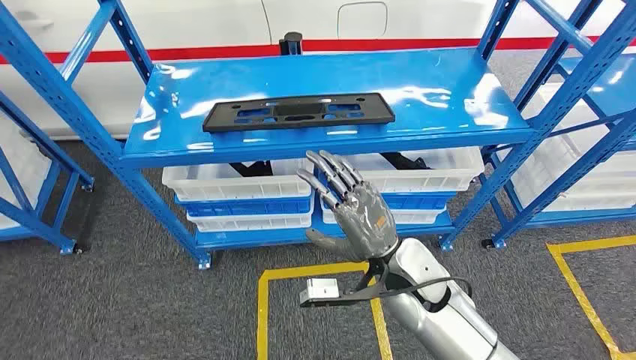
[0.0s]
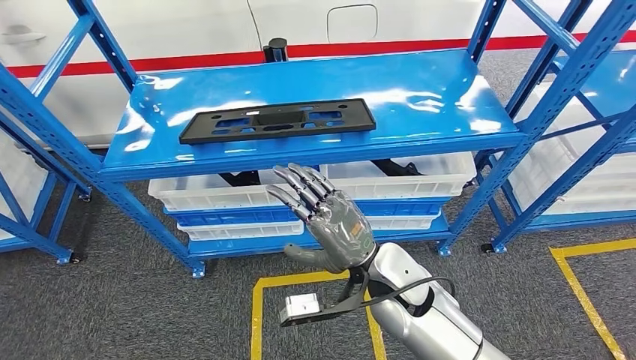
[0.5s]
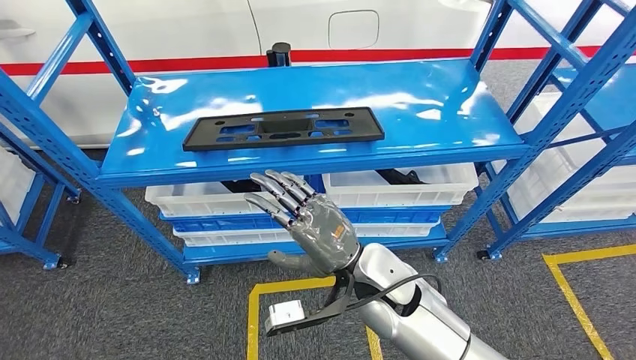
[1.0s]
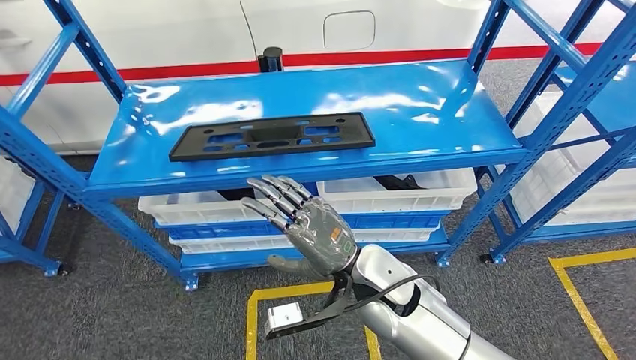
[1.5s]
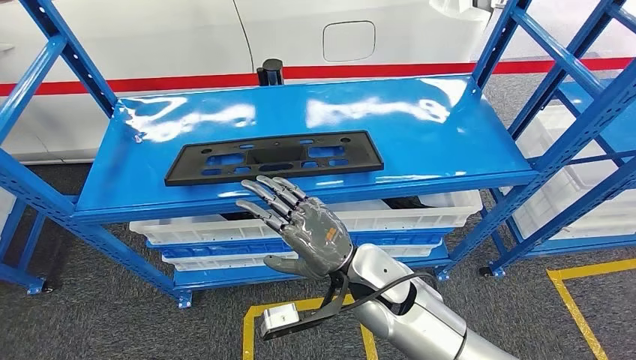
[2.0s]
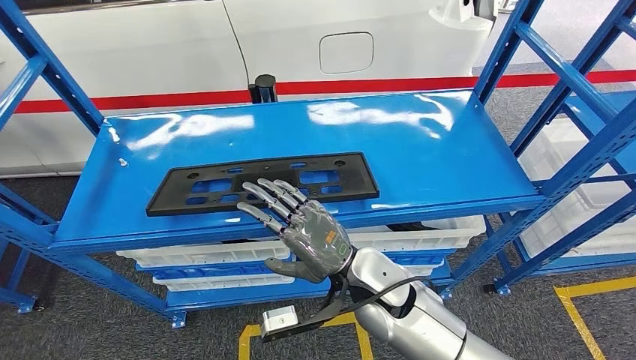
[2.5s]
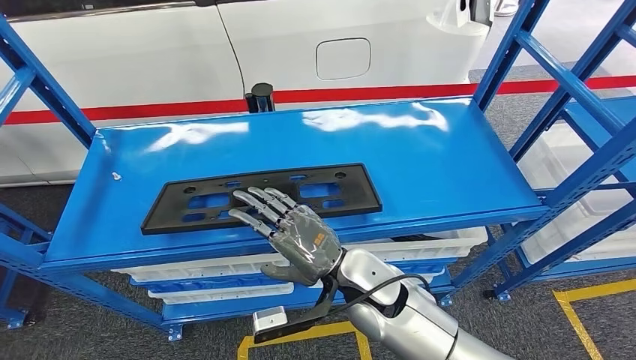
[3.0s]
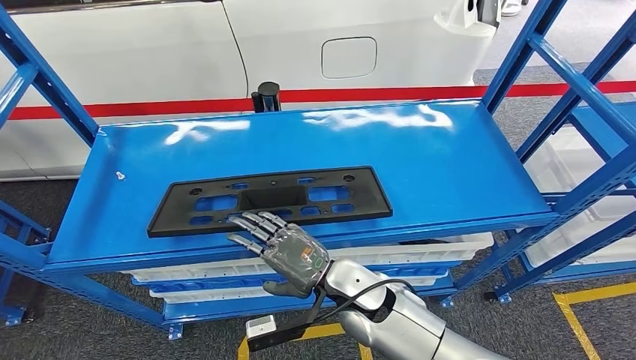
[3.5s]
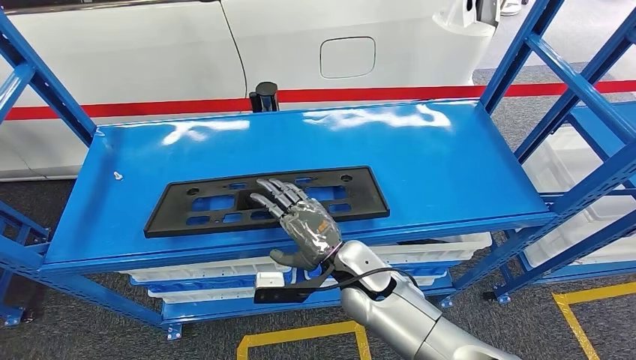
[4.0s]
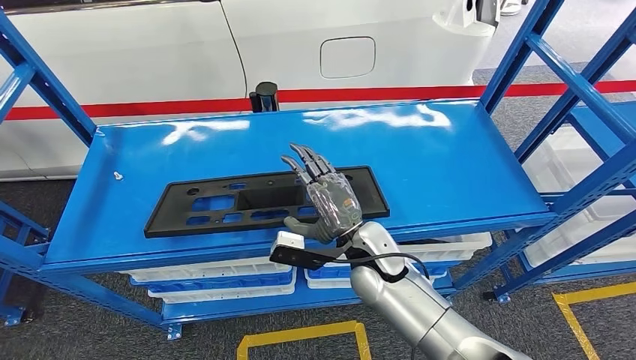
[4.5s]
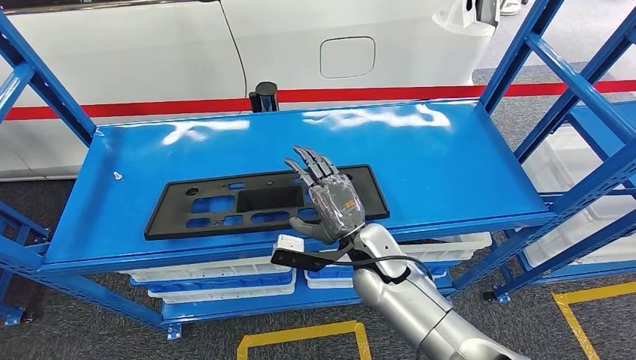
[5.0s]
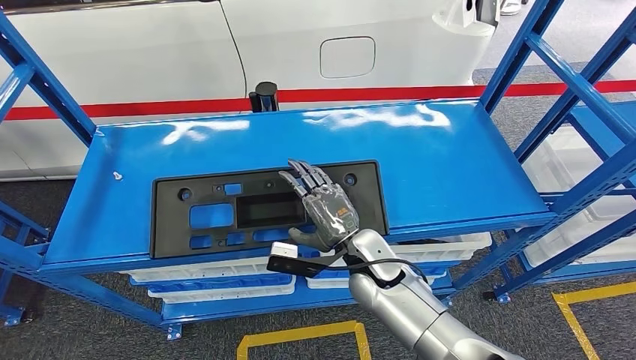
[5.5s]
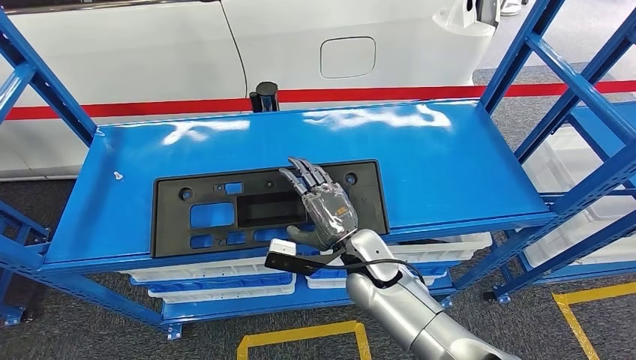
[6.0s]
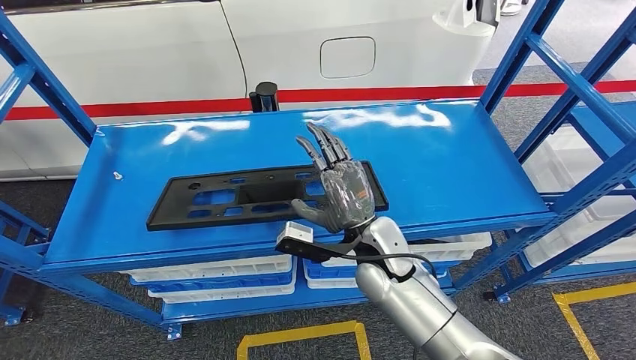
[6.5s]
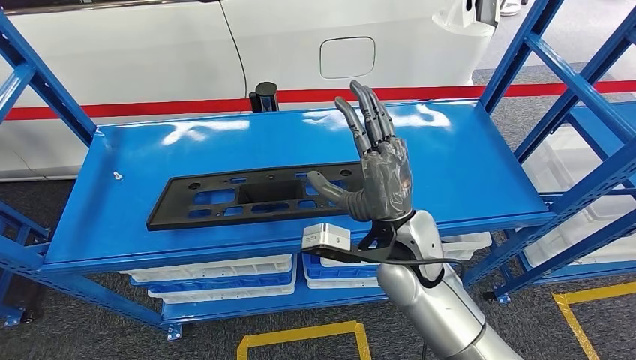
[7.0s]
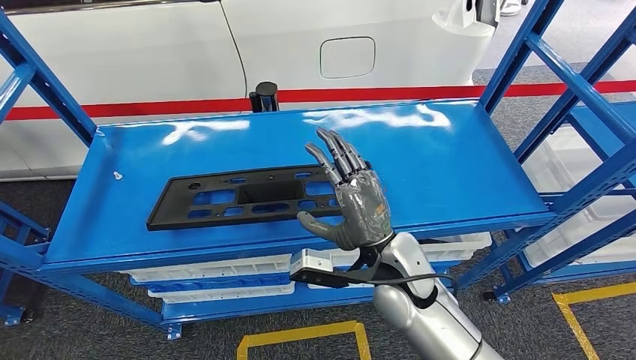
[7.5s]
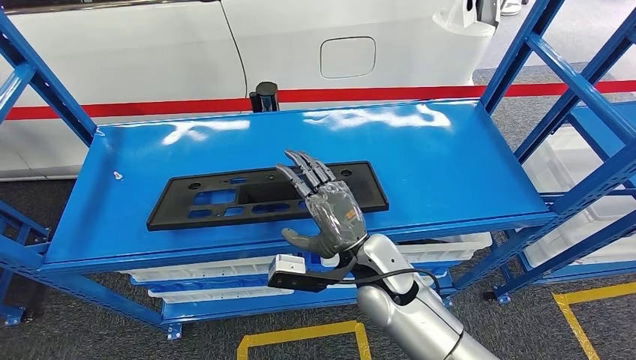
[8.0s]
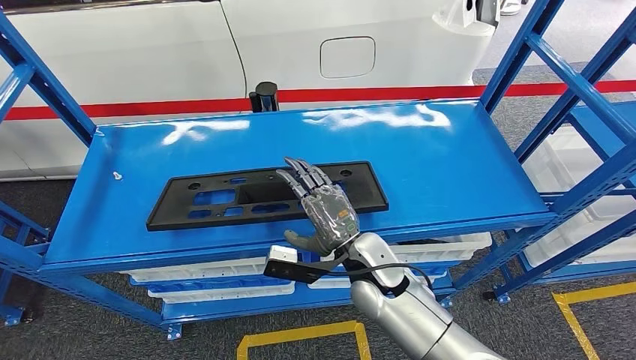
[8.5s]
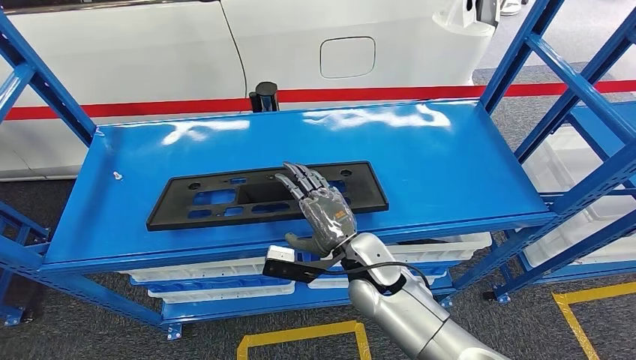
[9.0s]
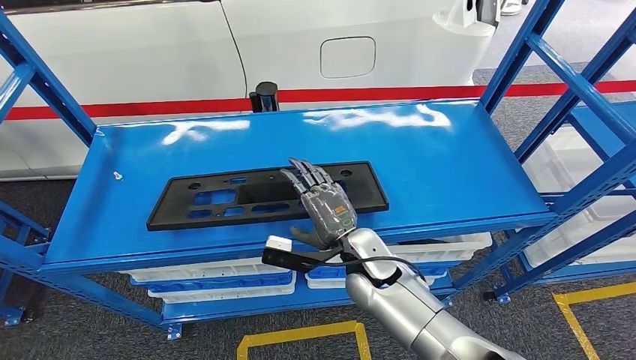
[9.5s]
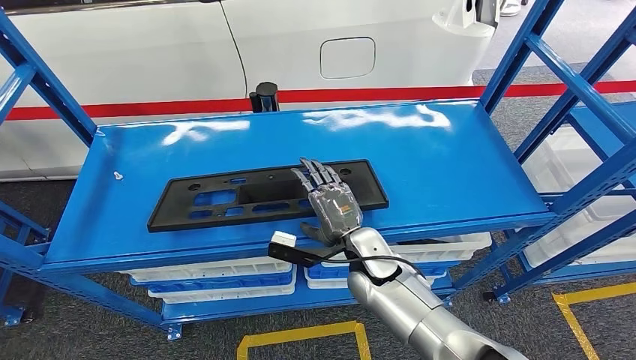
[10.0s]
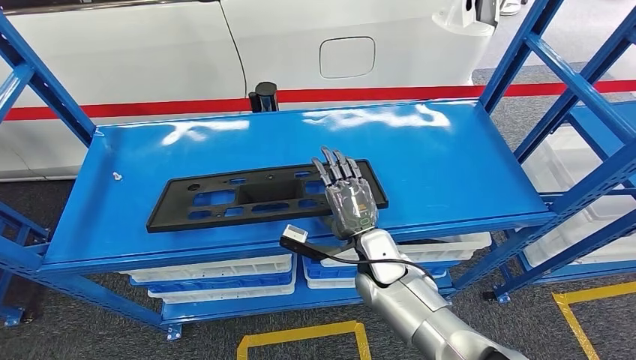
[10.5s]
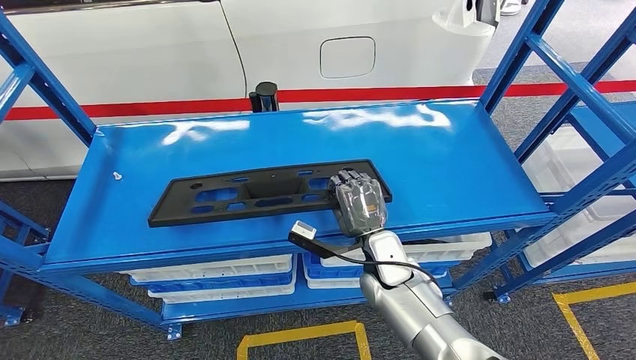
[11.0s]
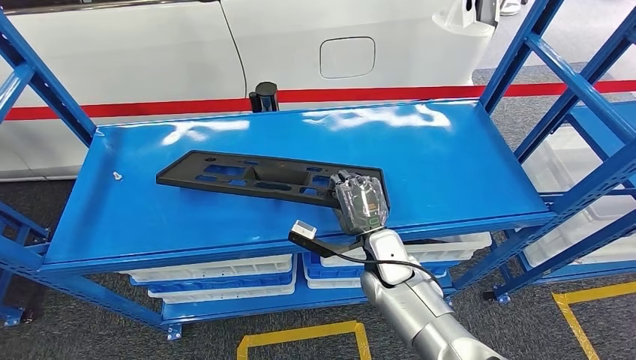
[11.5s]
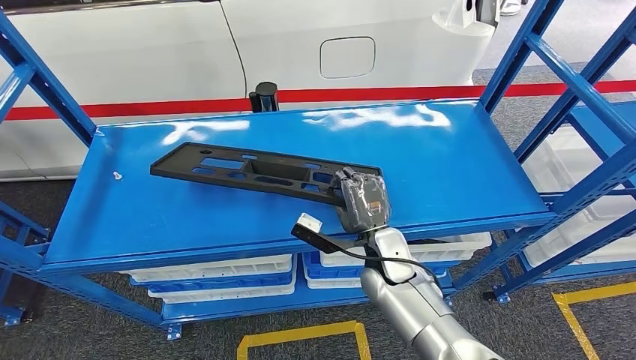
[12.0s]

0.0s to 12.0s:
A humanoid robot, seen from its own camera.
4.0s to 6.0s: The hands move only a little.
8.0s to 10.0s: The right hand goes some 5 cm downward.
10.0s to 12.0s: The hands make only small movements.

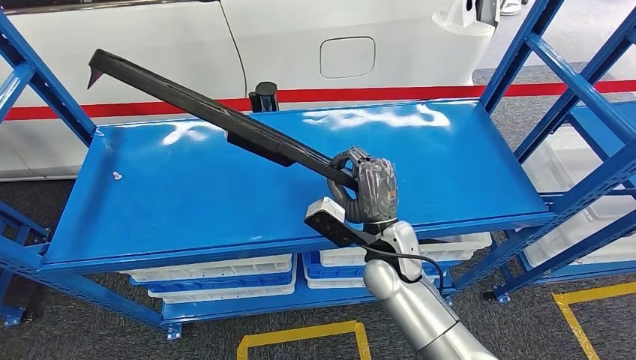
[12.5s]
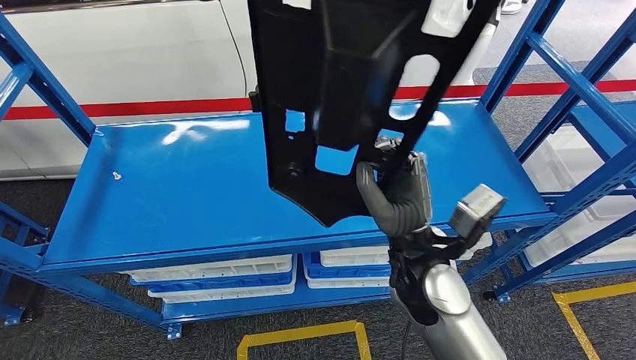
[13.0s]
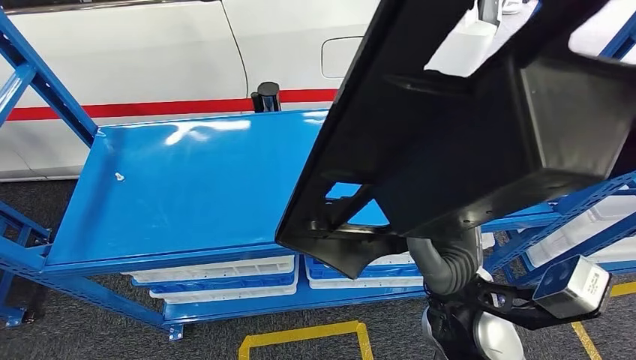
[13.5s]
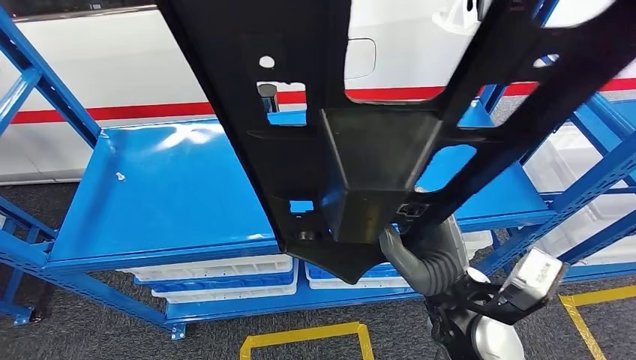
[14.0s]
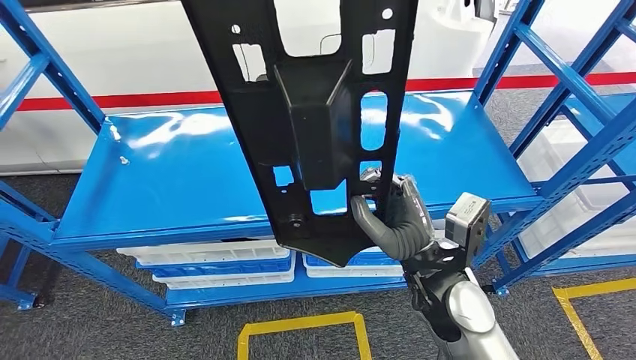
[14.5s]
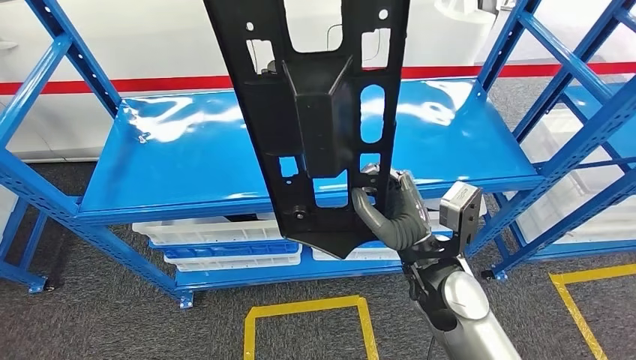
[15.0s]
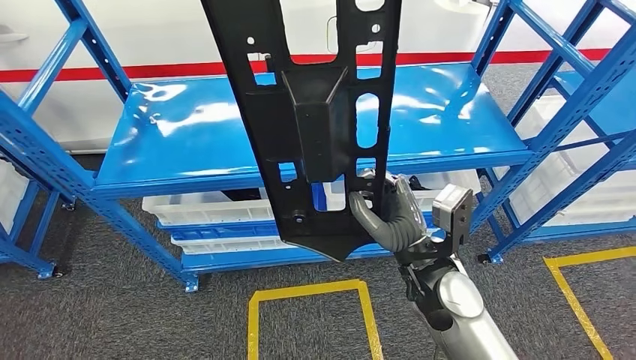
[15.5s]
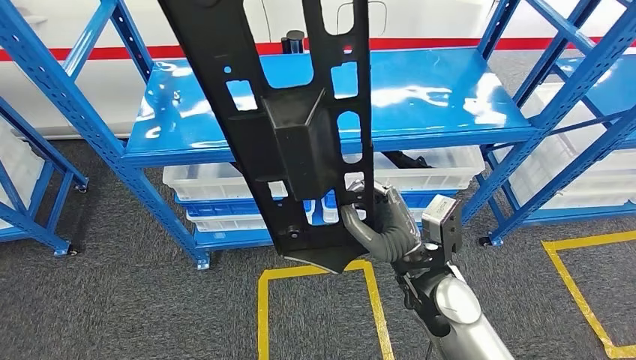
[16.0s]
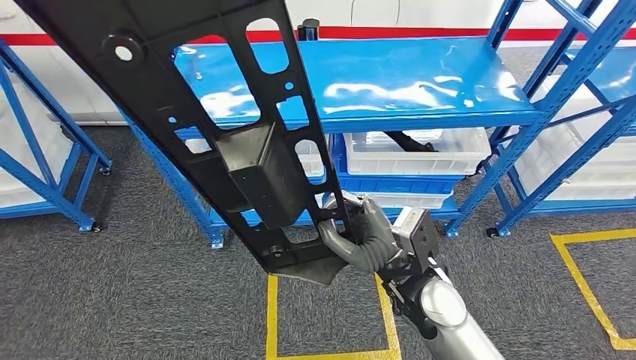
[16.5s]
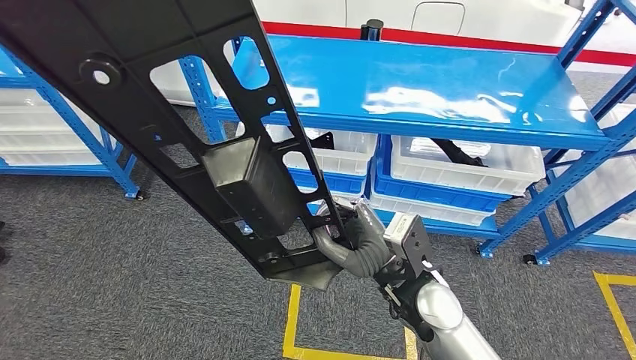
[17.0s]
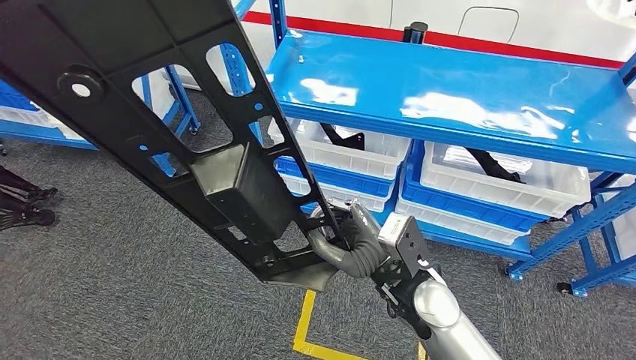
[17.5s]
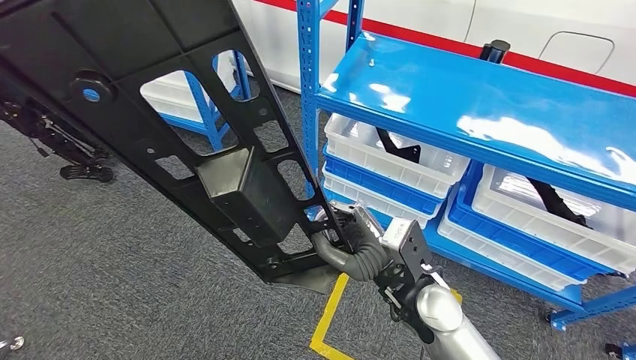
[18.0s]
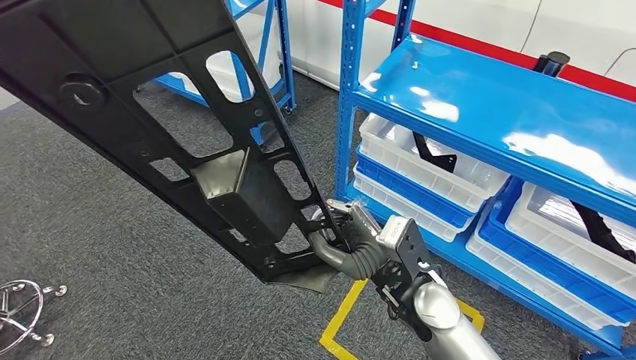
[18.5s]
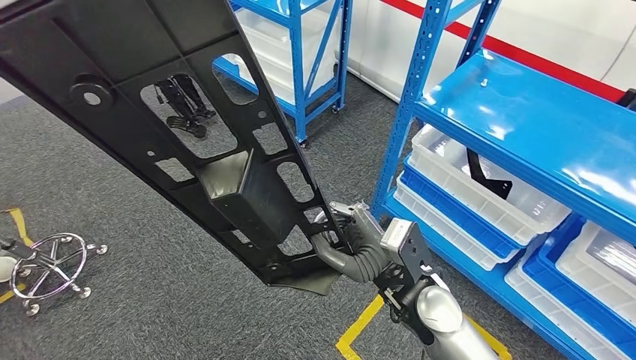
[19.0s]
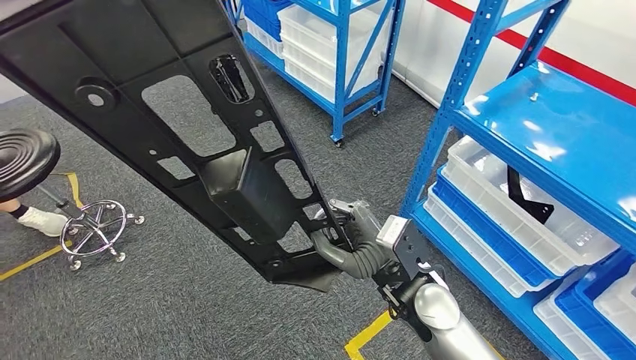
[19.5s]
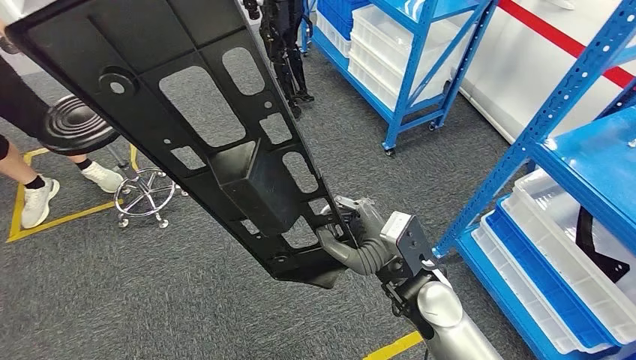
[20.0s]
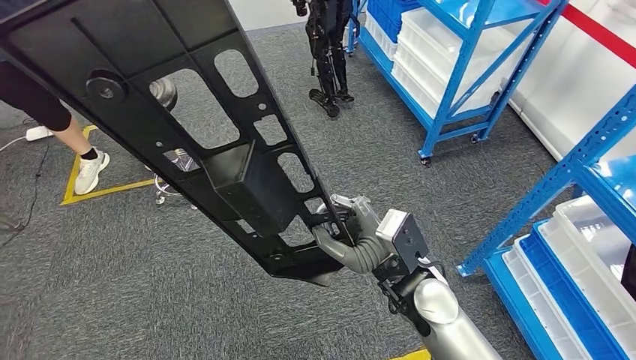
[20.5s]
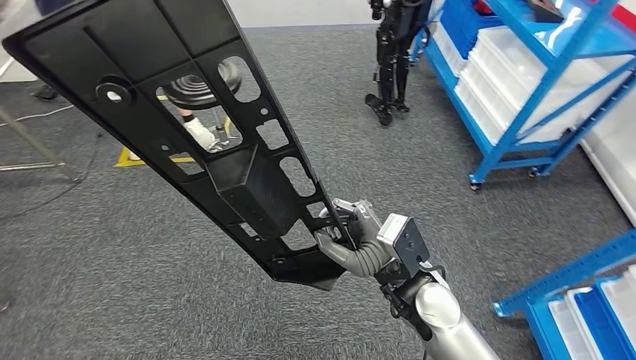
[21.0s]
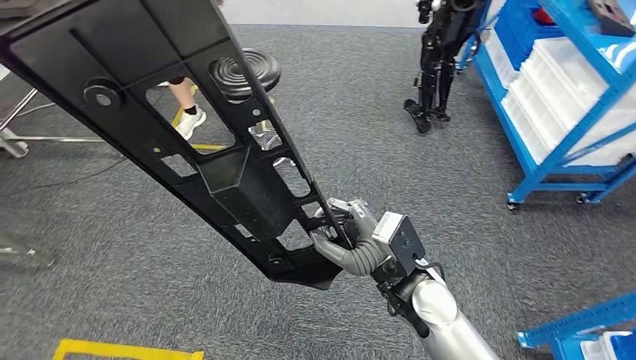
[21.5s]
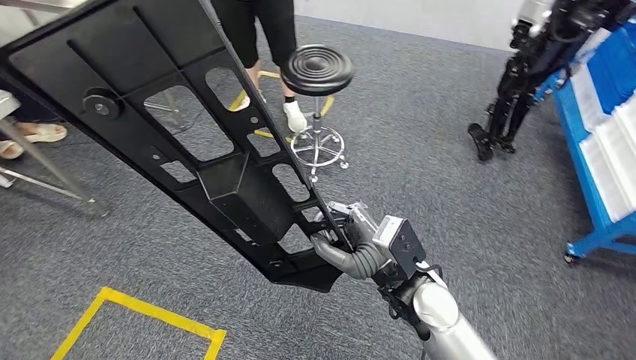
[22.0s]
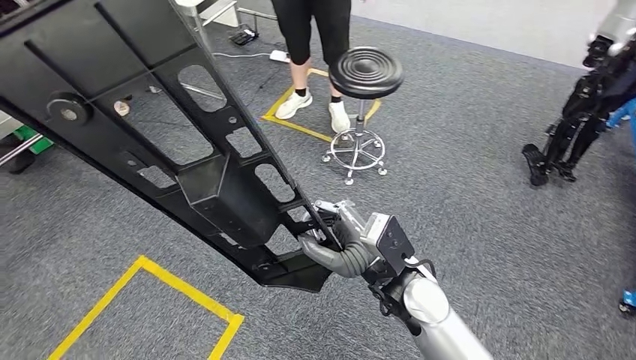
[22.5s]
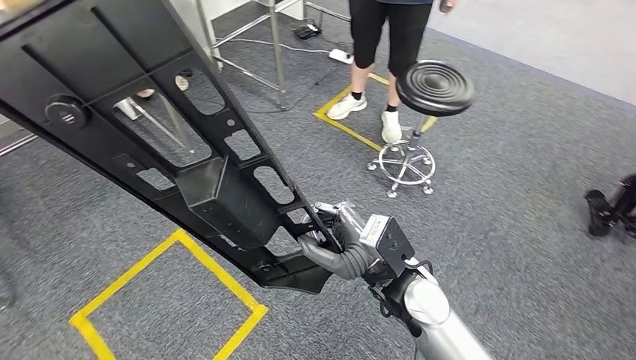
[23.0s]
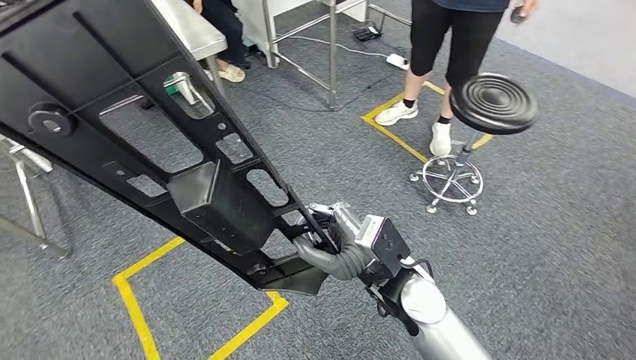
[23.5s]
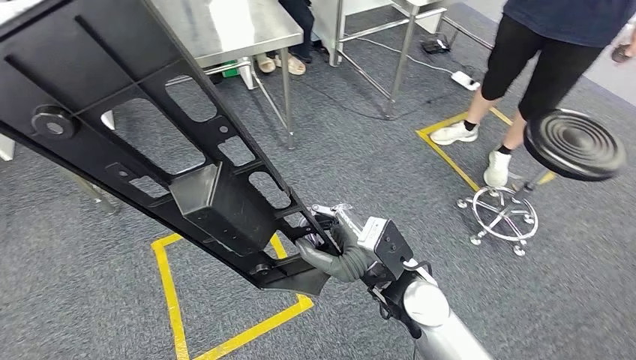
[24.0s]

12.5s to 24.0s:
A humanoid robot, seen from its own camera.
Step, 12.5s to 14.5s: Pick up the large material from the shelf.
